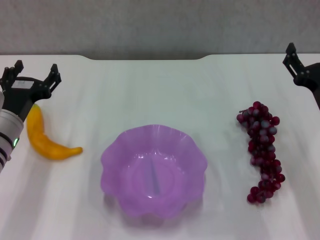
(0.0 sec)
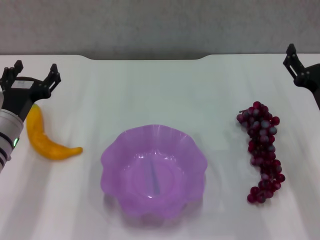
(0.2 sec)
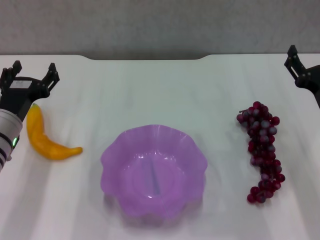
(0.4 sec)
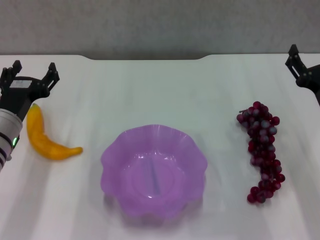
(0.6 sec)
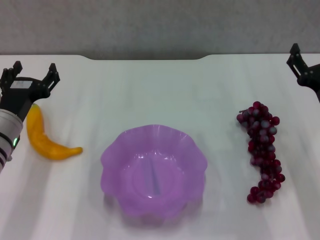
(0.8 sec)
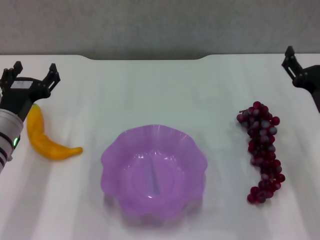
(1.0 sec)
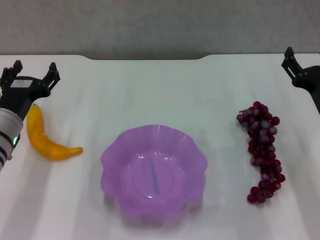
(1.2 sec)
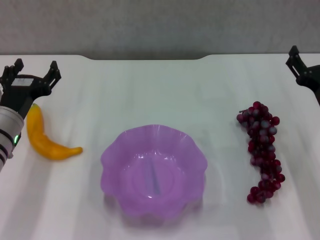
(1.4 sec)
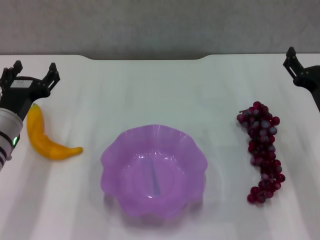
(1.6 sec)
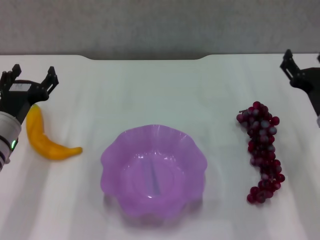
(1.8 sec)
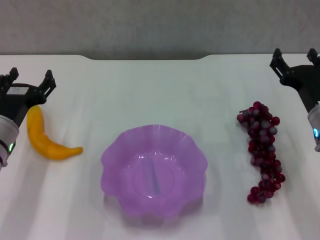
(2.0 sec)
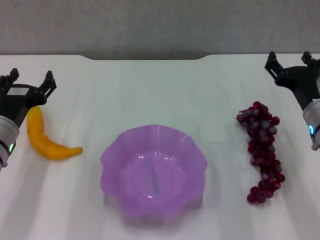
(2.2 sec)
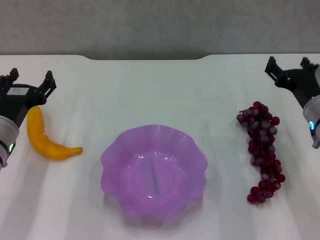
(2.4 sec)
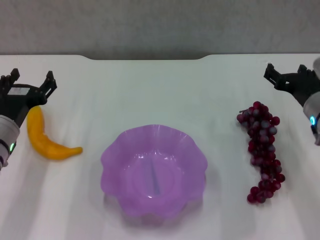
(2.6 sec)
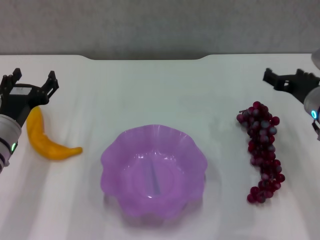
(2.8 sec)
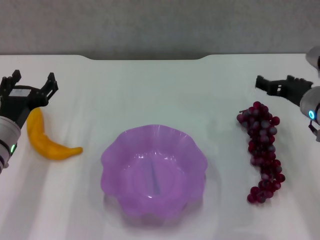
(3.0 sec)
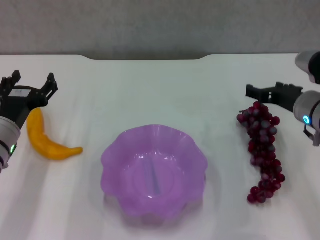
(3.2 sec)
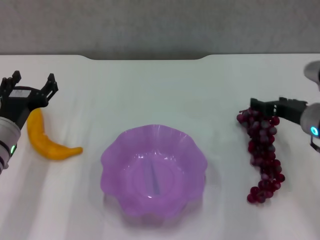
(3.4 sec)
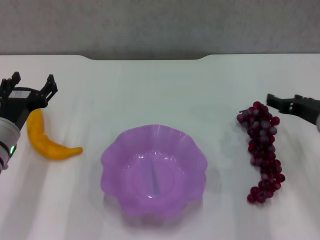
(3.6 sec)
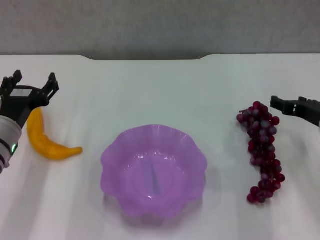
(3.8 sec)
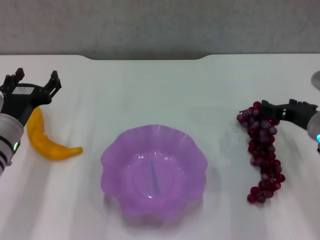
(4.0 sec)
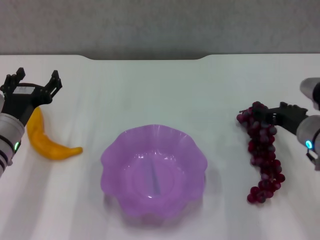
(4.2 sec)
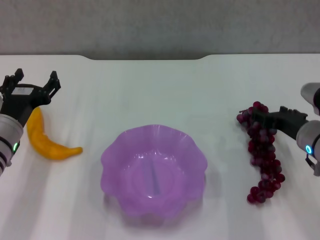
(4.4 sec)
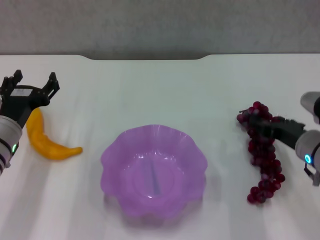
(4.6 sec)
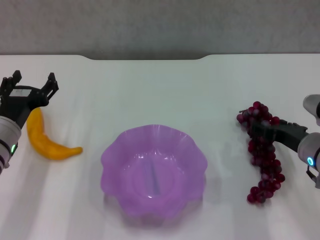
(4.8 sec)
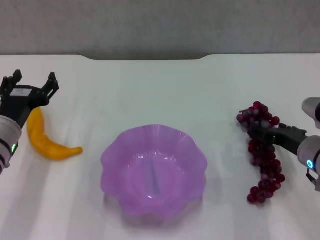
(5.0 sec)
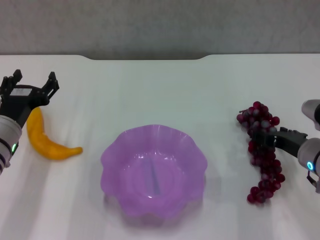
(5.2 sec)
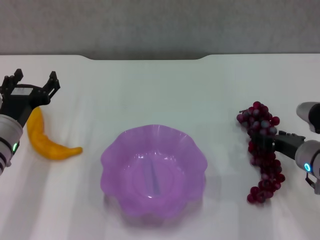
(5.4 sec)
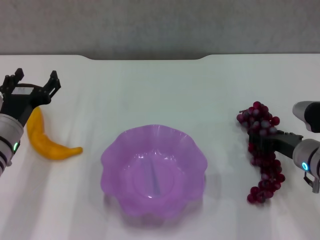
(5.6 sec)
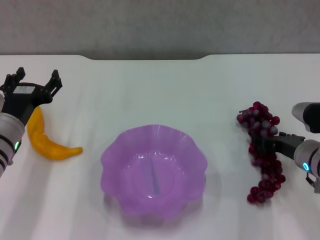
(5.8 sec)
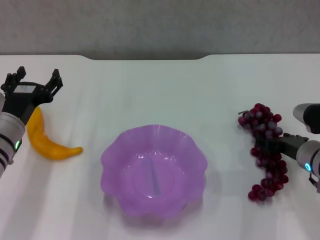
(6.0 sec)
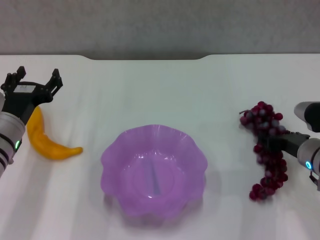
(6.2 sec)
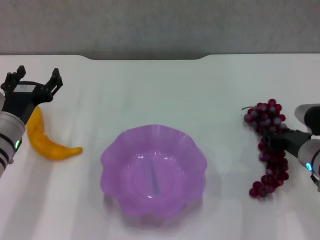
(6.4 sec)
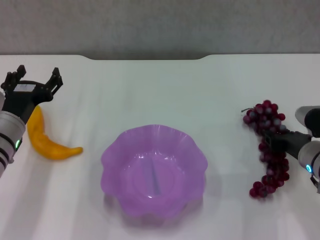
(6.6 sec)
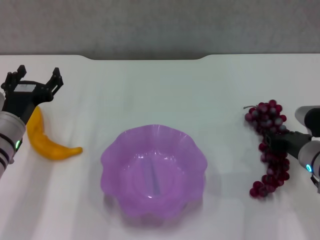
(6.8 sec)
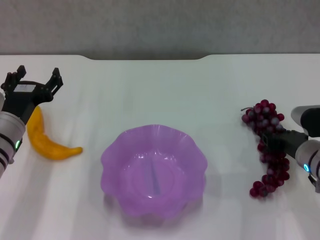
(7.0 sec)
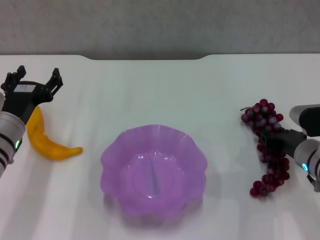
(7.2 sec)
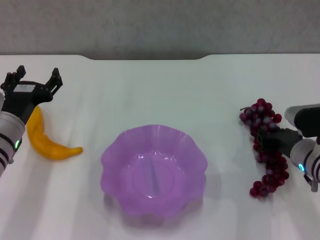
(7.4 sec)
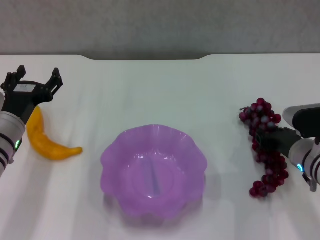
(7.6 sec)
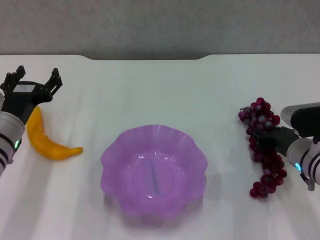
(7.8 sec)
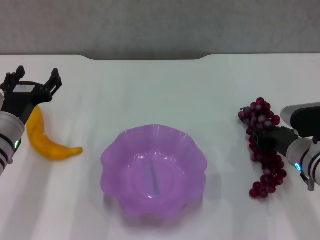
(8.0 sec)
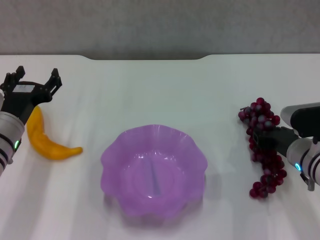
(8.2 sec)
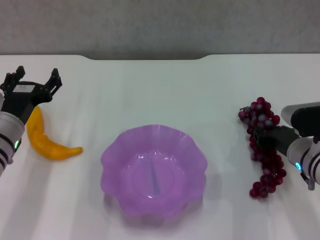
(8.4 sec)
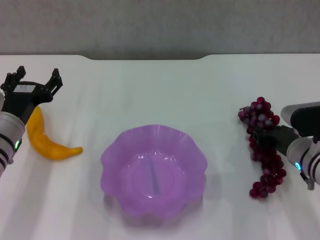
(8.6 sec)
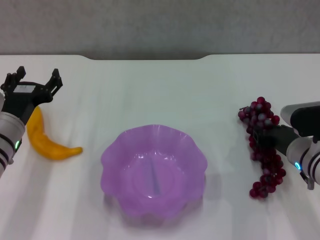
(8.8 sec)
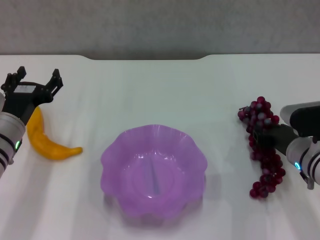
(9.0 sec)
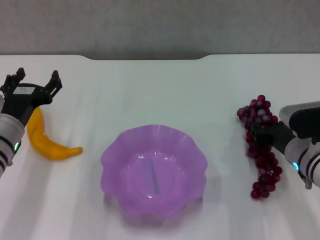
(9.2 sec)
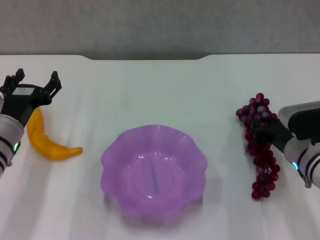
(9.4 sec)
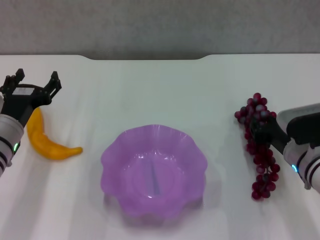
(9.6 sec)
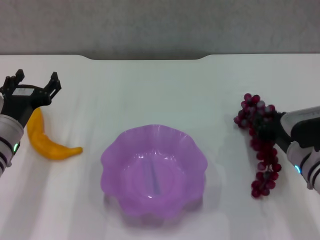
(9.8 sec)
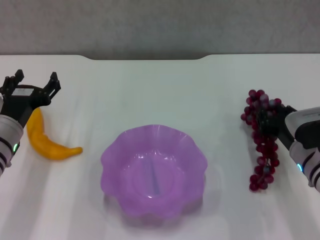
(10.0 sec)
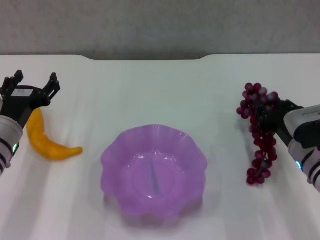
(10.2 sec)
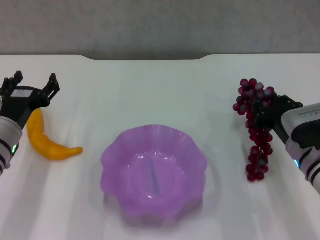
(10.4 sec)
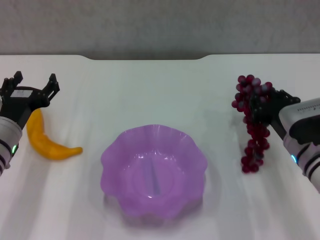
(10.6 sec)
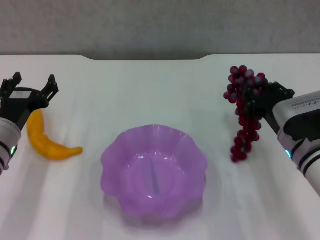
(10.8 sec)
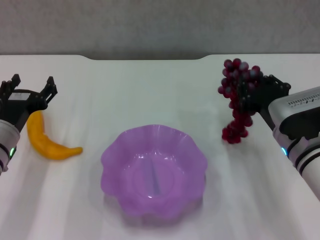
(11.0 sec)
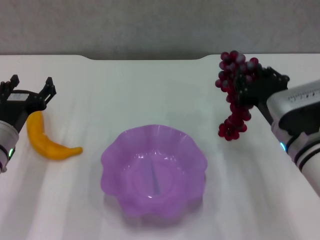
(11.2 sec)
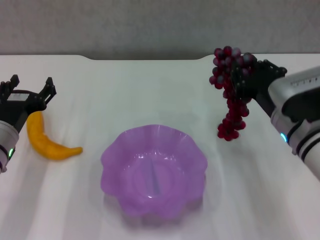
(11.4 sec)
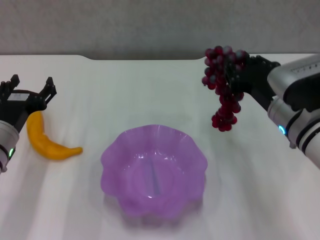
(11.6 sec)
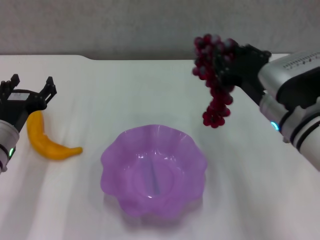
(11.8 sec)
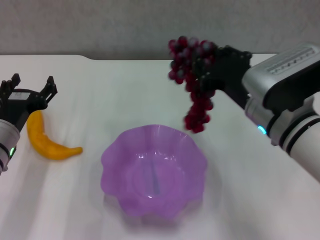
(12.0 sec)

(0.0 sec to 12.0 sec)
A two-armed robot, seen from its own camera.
Step, 0.0 sec - 8.6 sec: Grasp the grape with right gripper.
0.0 sec - 1.6 sec: There are only small adjustments of the grippers.
1.6 sec - 3.0 sec: The right gripper is displaced forward by approximately 5 cm.
3.0 sec - 4.4 sec: The right gripper ends up some 5 cm from where it was.
4.4 sec - 6.0 sec: The grippers make only small movements.
6.0 sec - 7.6 sec: The right gripper closes.
7.6 sec - 9.0 sec: Both grippers stay about where they are.
10.4 sec - 12.0 sec: The right gripper heads upward and to the left, covering about 15 cm.

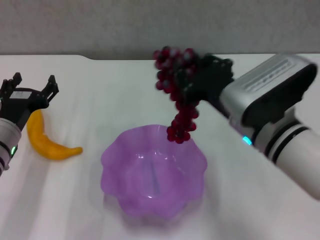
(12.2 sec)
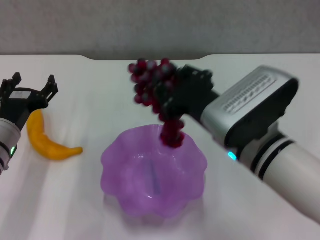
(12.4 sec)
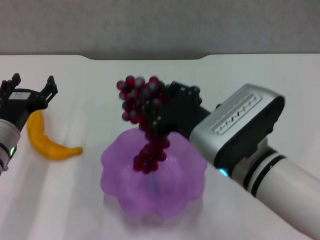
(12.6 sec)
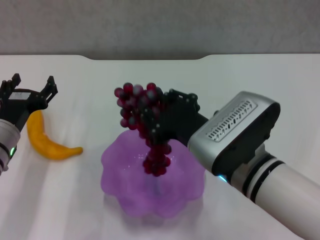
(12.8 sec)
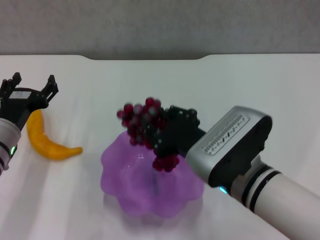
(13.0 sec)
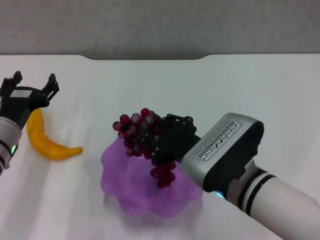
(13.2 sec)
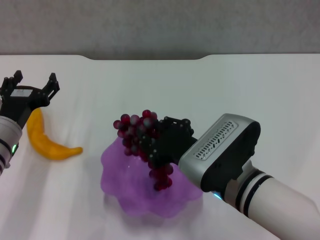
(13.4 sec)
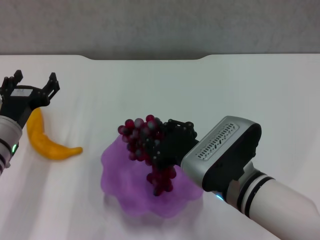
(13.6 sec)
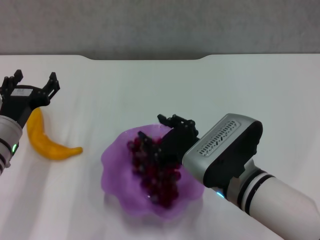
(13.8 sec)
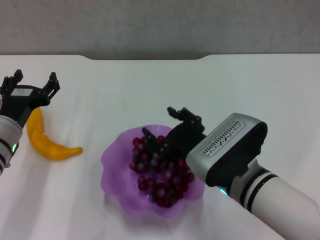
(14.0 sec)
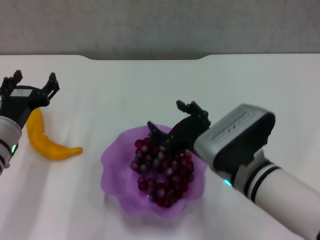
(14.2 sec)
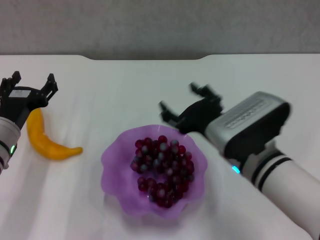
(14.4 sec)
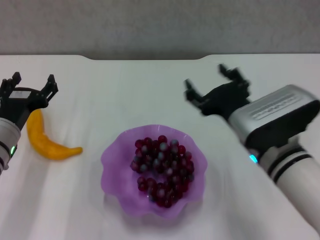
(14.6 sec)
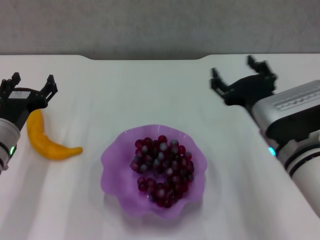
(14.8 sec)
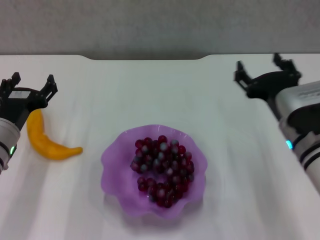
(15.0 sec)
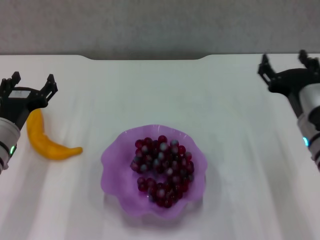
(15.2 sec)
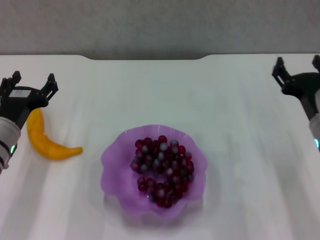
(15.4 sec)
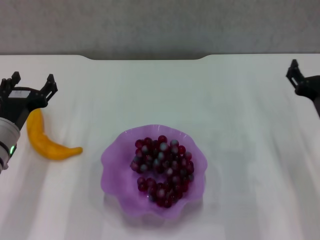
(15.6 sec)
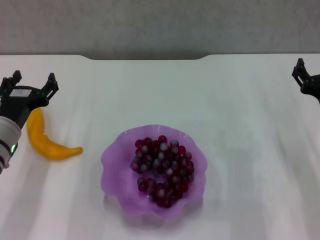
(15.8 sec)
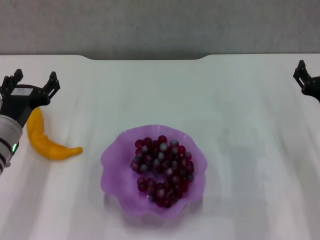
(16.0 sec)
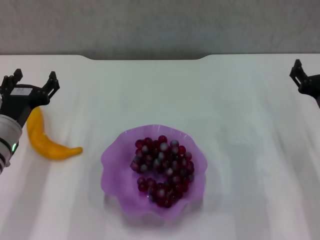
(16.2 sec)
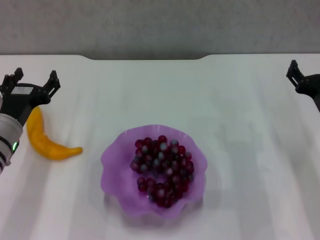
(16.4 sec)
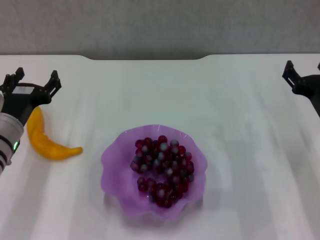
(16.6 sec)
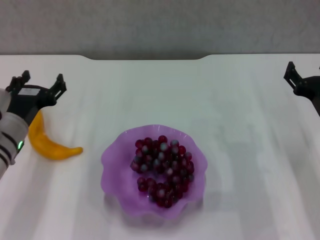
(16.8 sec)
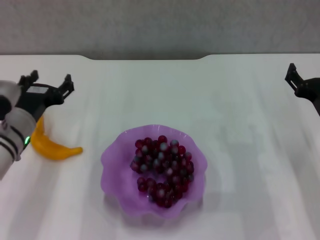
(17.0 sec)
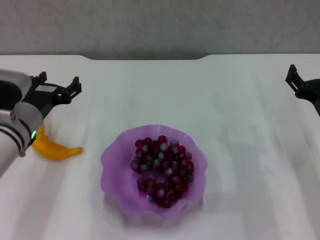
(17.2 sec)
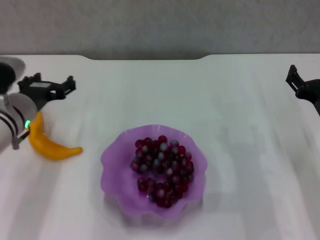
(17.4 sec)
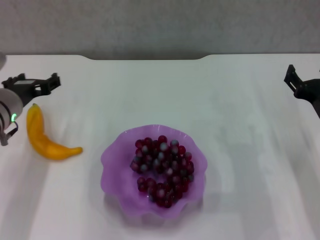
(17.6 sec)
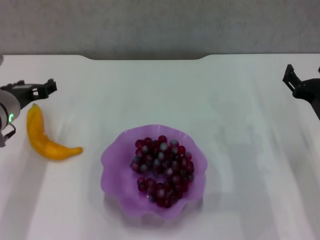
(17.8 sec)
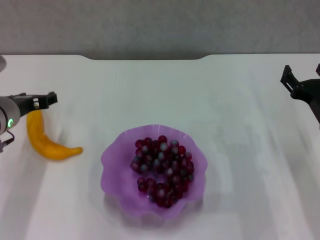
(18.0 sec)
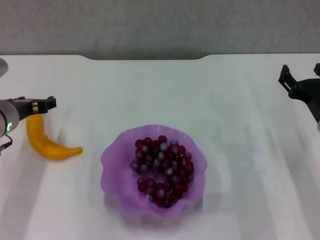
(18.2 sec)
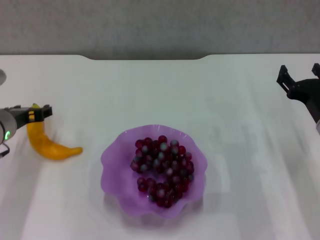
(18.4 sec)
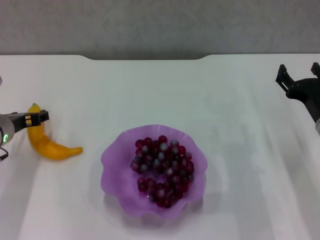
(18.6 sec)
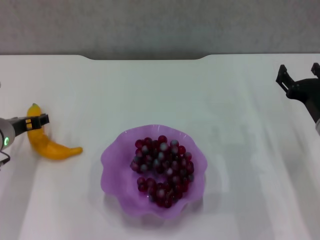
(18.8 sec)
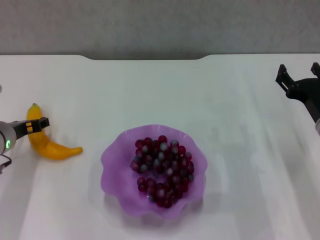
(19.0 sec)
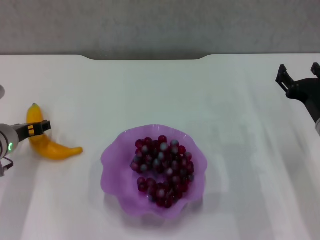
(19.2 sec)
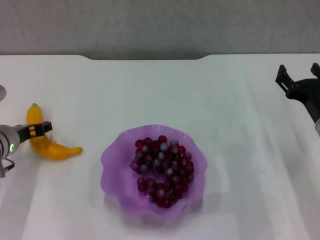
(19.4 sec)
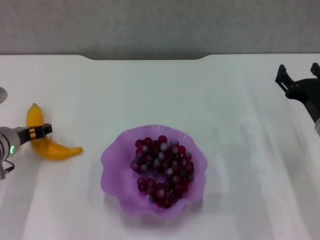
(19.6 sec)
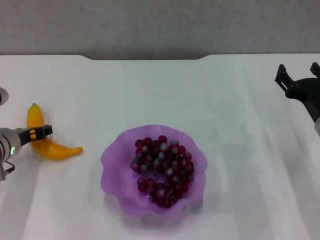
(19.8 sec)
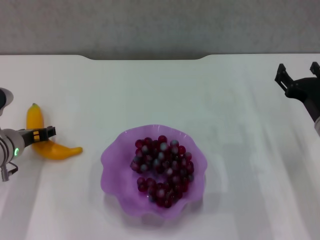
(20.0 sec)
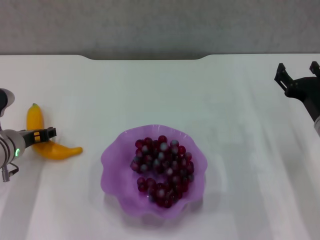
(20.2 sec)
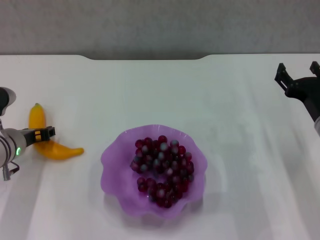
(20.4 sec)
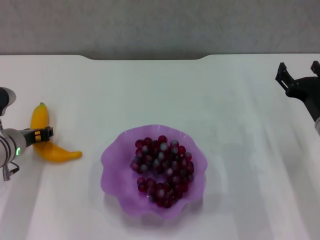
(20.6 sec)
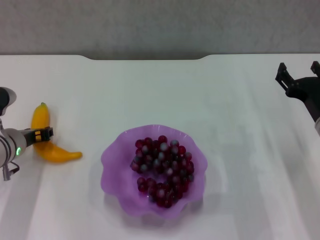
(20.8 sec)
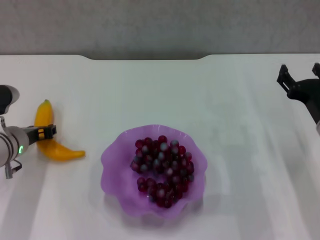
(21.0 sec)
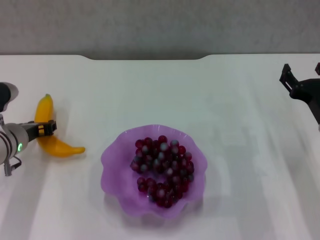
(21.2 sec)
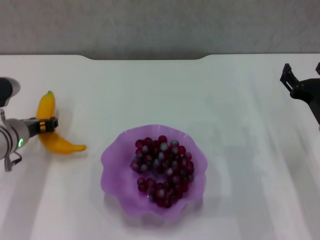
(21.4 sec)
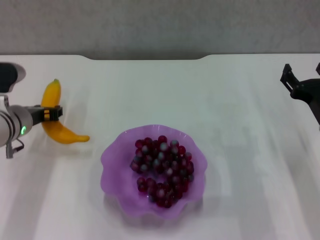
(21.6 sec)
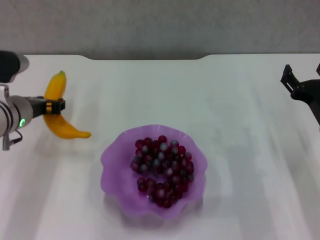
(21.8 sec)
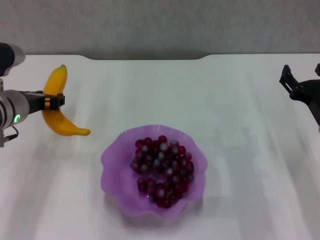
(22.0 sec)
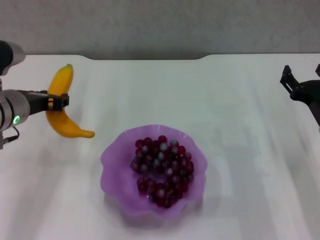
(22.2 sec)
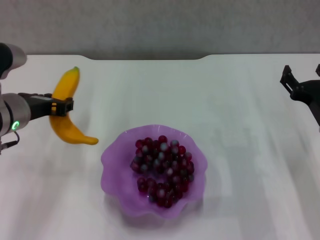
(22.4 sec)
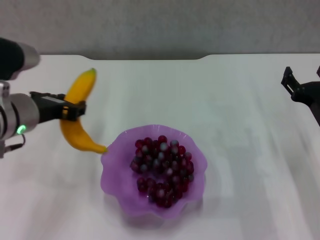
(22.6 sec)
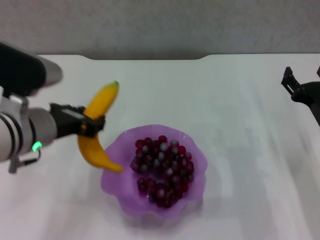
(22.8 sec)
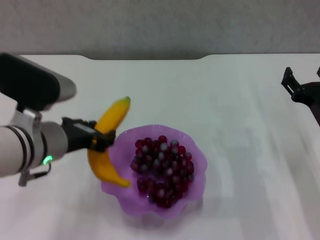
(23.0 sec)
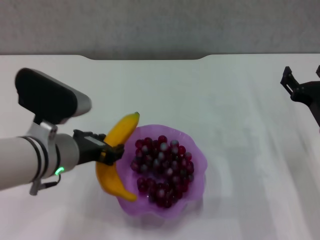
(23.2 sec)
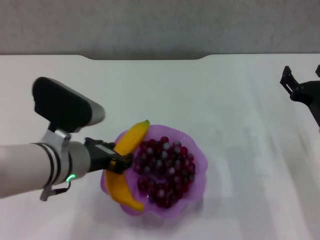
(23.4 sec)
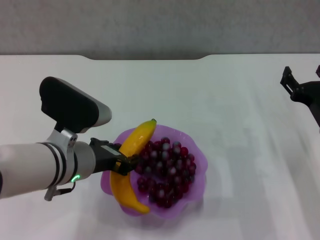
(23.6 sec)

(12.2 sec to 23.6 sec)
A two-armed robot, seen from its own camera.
Step, 14.2 sec - 20.6 sec: Grasp the banana with left gripper.
12.2 sec - 13.6 sec: The right gripper goes approximately 5 cm downward.
13.6 sec - 15.0 sec: The right gripper is displaced to the right by roughly 10 cm, and opens its fingers.
15.0 sec - 16.4 sec: The right gripper moves to the right, approximately 10 cm.
16.4 sec - 17.8 sec: The left gripper moves some 5 cm.
17.8 sec - 19.4 sec: The left gripper is displaced downward by roughly 5 cm.
19.4 sec - 20.8 sec: The left gripper closes its fingers.
20.8 sec - 22.2 sec: The left gripper goes about 10 cm upward.
22.2 sec - 23.6 sec: The left gripper travels to the right and backward by roughly 10 cm.
